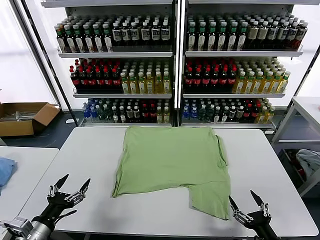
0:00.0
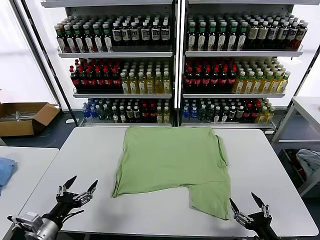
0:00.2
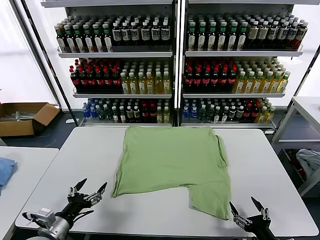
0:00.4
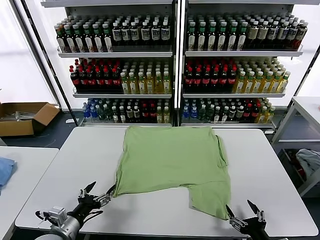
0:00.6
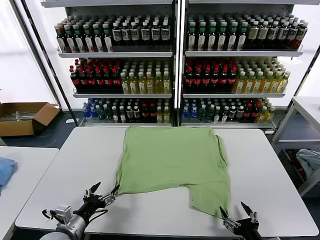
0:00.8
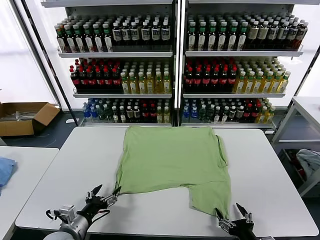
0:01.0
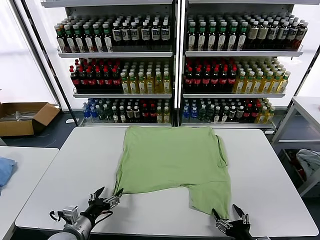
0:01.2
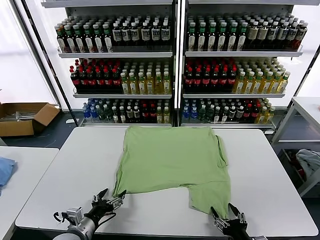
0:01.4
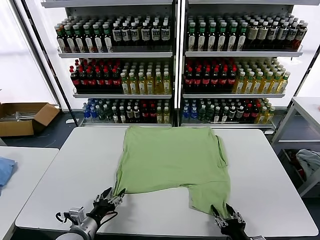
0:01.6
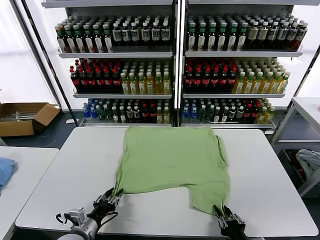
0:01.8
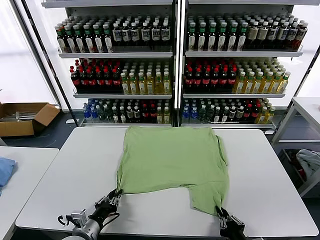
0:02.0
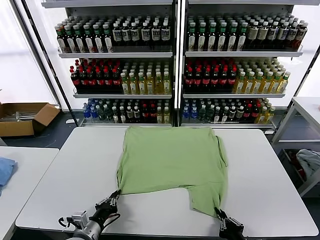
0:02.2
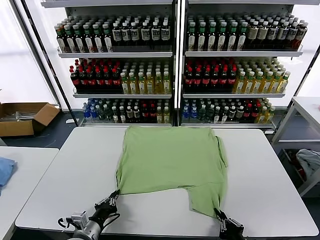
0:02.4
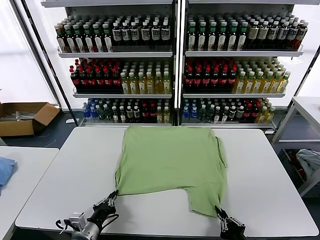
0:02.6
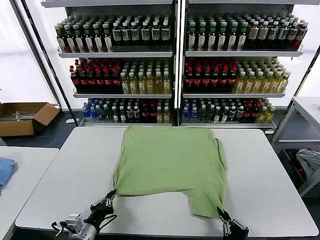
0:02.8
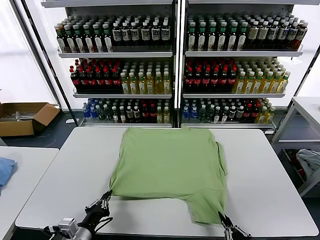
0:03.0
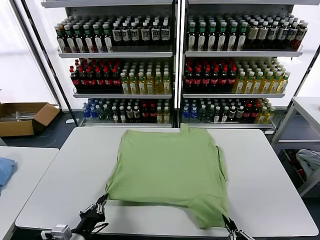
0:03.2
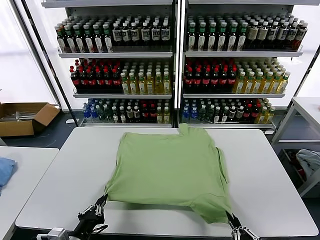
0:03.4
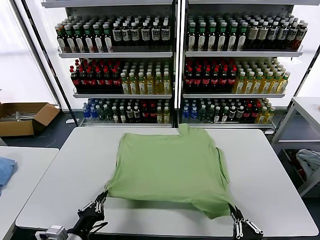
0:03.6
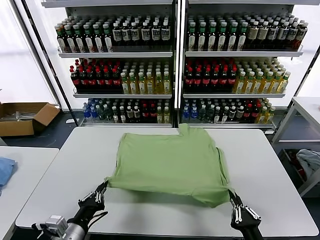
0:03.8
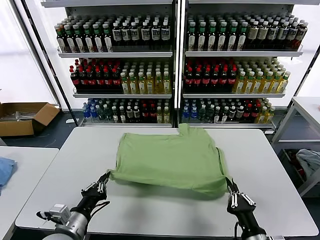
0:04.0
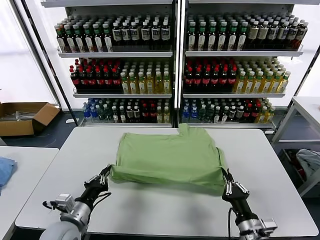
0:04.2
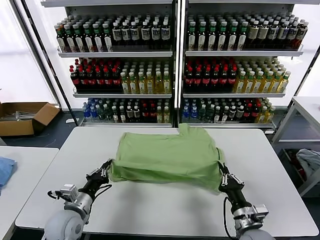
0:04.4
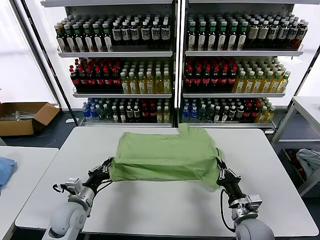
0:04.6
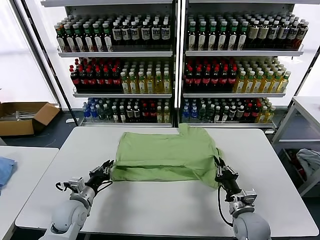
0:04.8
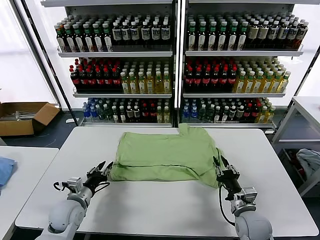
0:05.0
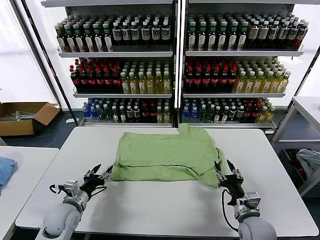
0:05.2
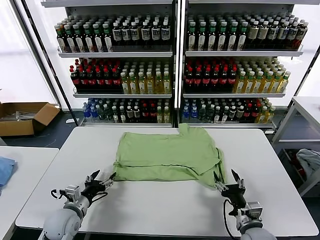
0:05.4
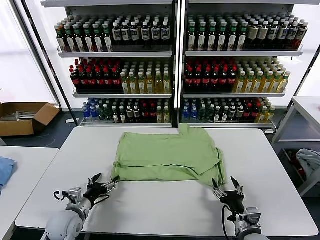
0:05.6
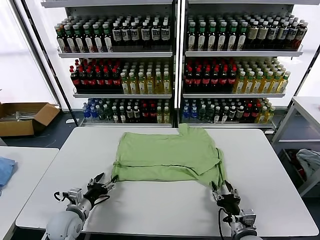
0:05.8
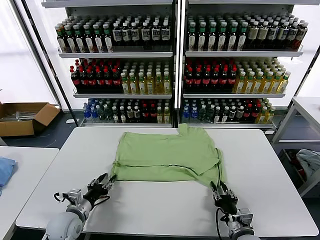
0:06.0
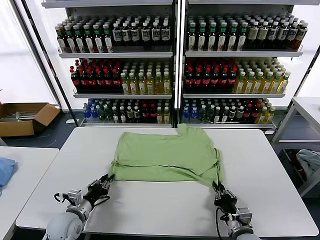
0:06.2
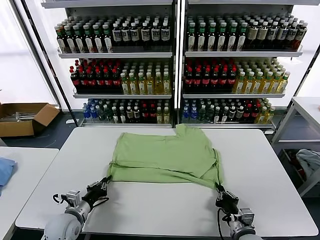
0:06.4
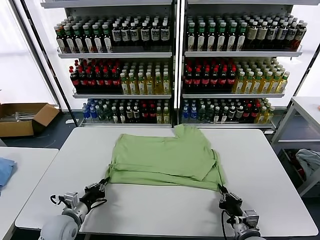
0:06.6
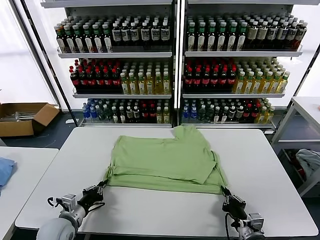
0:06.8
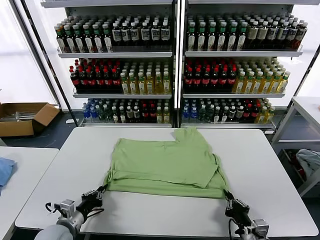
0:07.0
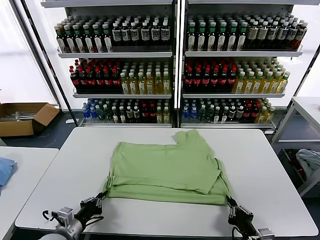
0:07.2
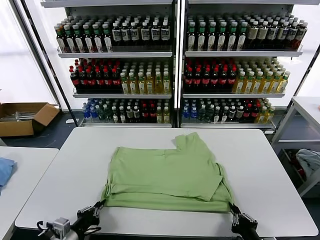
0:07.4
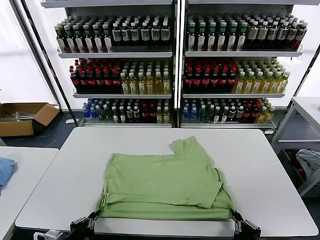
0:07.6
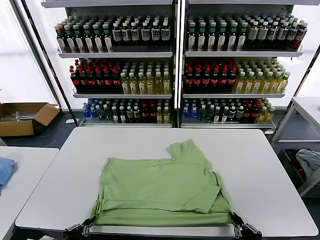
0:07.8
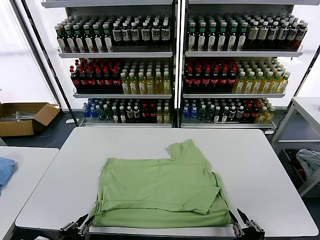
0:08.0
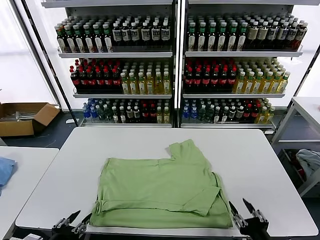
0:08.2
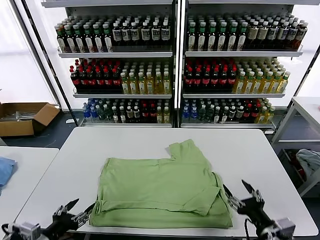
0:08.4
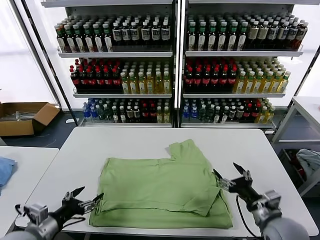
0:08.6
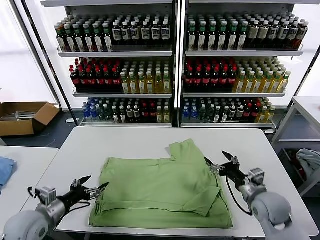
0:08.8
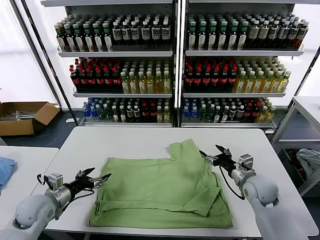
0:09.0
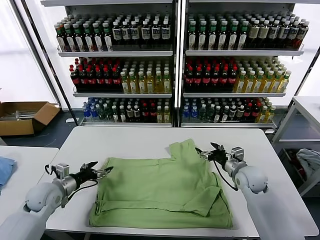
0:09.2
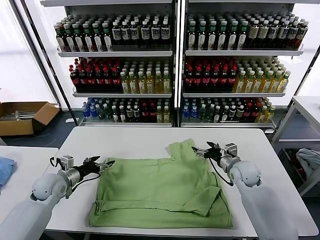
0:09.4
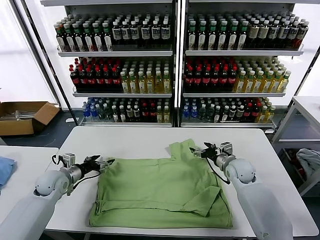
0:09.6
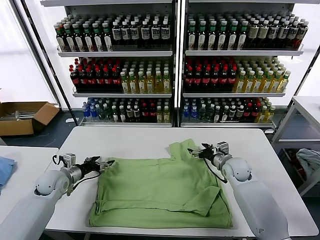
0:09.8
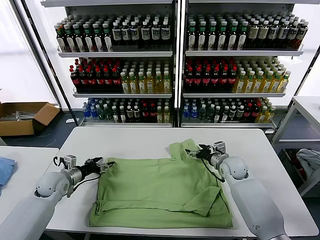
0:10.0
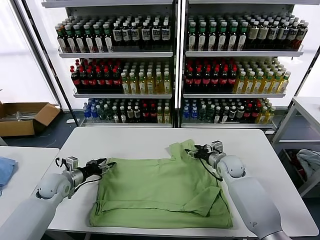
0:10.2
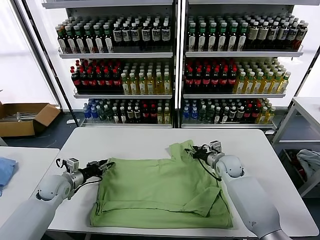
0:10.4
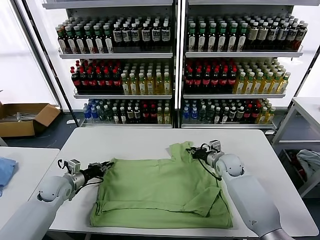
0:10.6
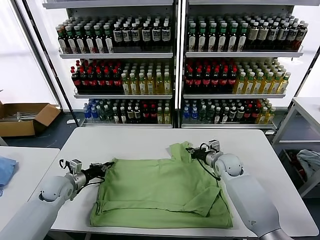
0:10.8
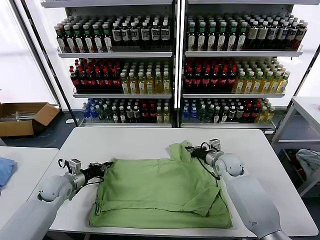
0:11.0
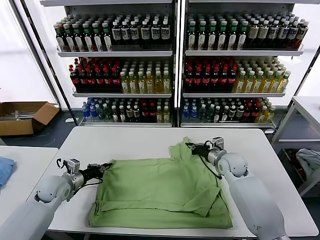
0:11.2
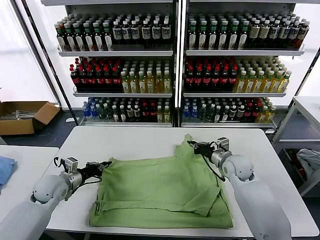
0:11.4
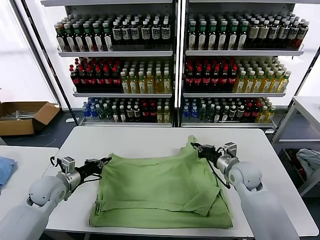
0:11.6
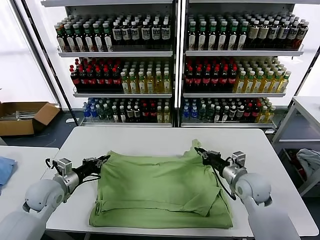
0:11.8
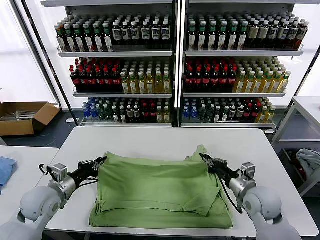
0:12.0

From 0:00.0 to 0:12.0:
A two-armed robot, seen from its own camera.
Task of the whole recording: fold and organize the clothes.
Step, from 0:00.0 to 0:02.2: use both grippers simultaneously to clamp the lower edge of the clothing fabric.
Step, from 0:02.4 to 0:05.0: use both grippers to drag the lower edge of the fabric forward and fold it over the upper edge.
Step, from 0:05.2 to 0:08.0: Drag the clothes downward with both gripper.
Step, from 0:08.2 to 0:10.6: use both grippers simultaneously to clamp the upper edge of the clothing fabric.
From 0:01.6 to 0:03.0: The left gripper shifts by some 5 cm, and closes; the right gripper is displaced backward by roughly 5 cm, and closes up.
From 0:03.0 to 0:04.4: The left gripper heads forward, covering roughly 10 cm; the right gripper shifts about 20 cm forward.
From 0:04.4 to 0:06.0: The left gripper shifts some 5 cm downward, and opens its fingers, while the right gripper ends up approximately 5 cm from where it was, and opens and closes again.
From 0:06.0 to 0:07.6: The left gripper shifts about 15 cm backward, and closes up. Meanwhile the right gripper goes some 15 cm backward and upward.
From 0:07.6 to 0:09.0: The left gripper travels forward by roughly 20 cm, and opens. The right gripper shifts approximately 30 cm forward, and opens its fingers.
From 0:09.0 to 0:10.4: The right gripper is displaced forward and to the left by some 10 cm, and closes its fingers. The left gripper heads forward, covering about 10 cm, and closes up.
From 0:10.4 to 0:12.0: The left gripper is displaced backward and upward by approximately 10 cm, and closes up, while the right gripper moves backward, approximately 20 cm, and closes.

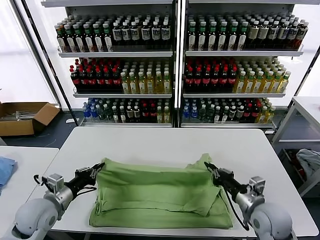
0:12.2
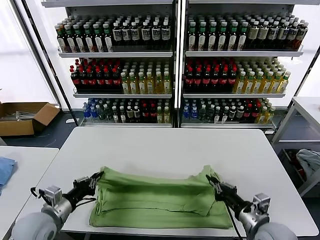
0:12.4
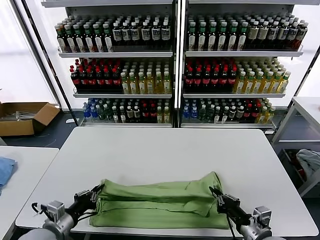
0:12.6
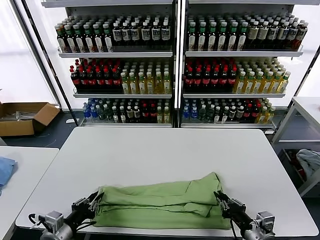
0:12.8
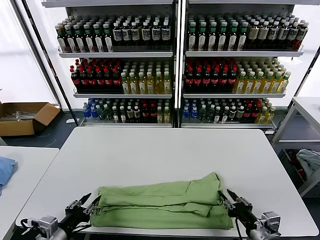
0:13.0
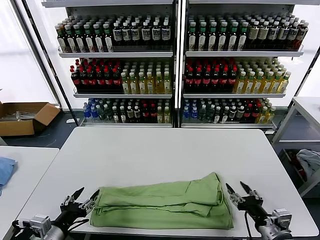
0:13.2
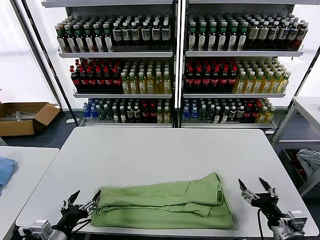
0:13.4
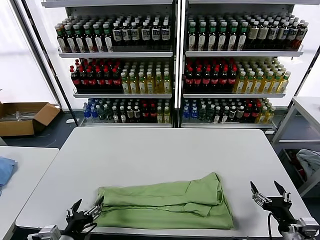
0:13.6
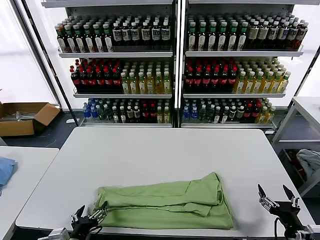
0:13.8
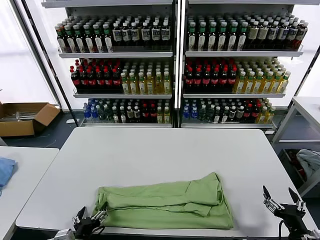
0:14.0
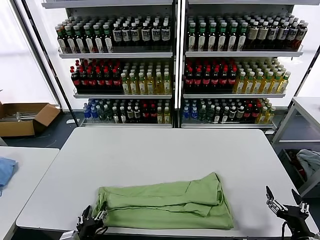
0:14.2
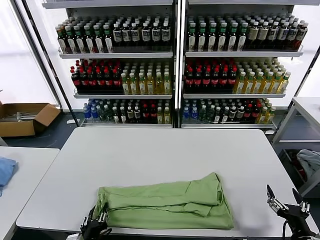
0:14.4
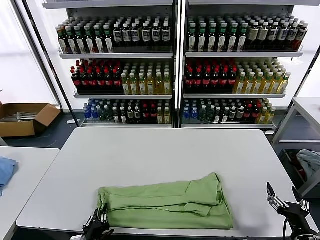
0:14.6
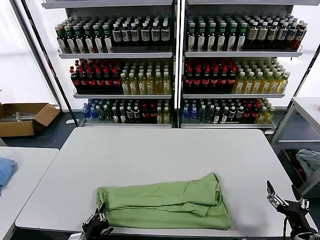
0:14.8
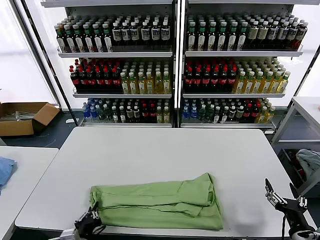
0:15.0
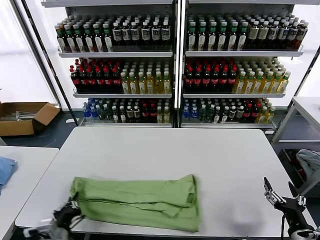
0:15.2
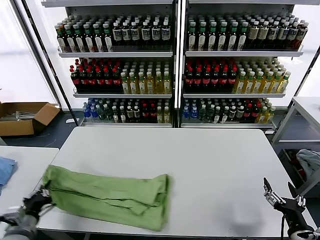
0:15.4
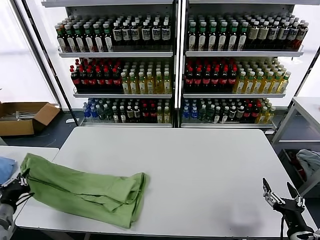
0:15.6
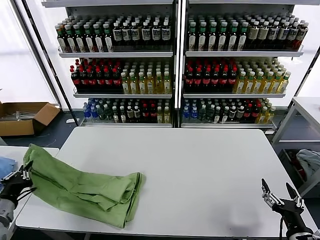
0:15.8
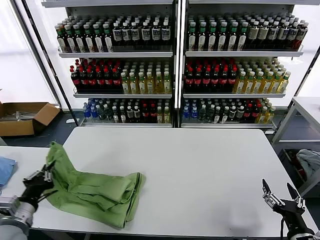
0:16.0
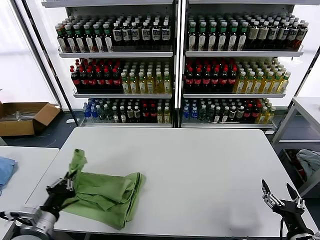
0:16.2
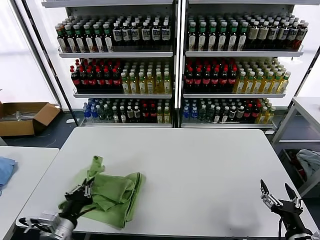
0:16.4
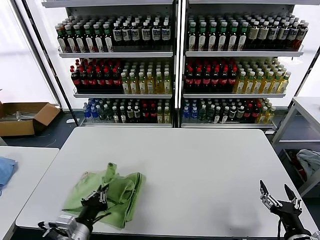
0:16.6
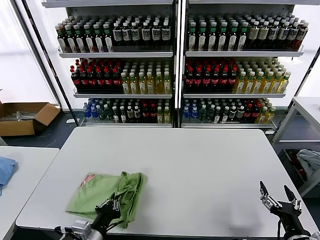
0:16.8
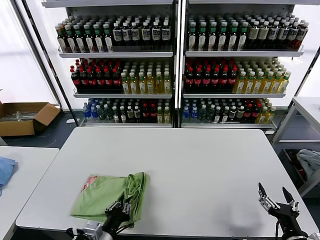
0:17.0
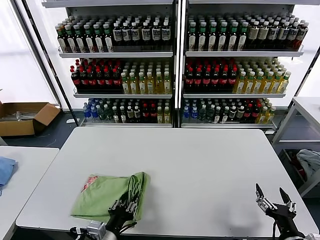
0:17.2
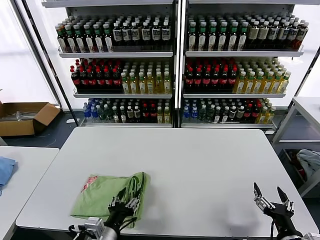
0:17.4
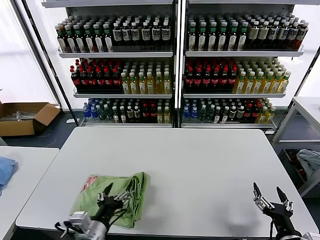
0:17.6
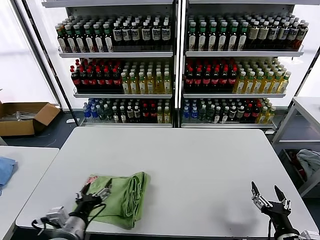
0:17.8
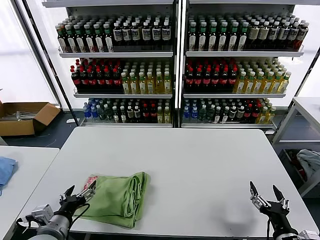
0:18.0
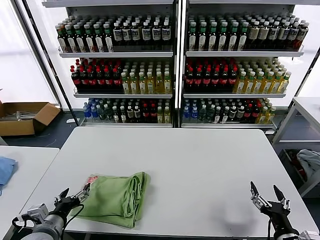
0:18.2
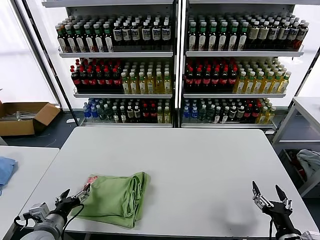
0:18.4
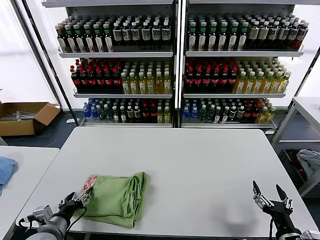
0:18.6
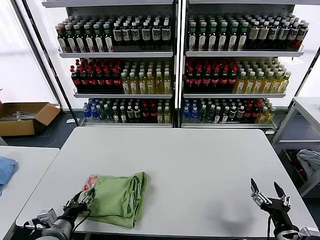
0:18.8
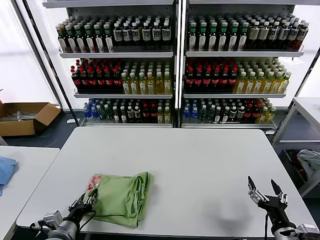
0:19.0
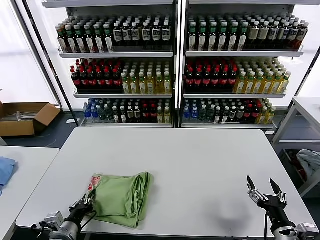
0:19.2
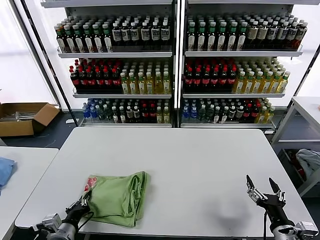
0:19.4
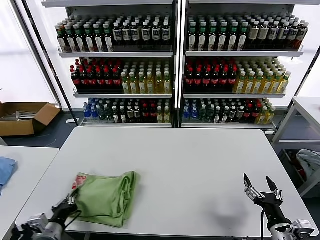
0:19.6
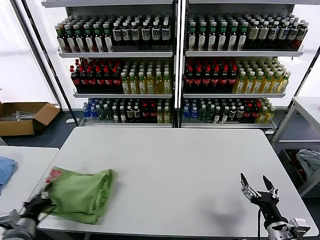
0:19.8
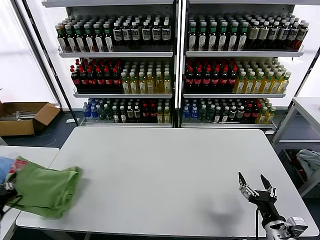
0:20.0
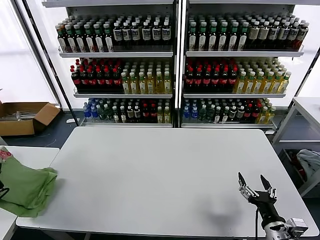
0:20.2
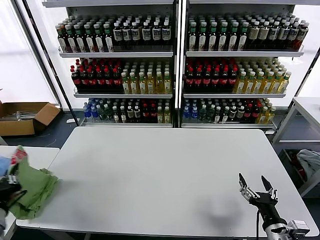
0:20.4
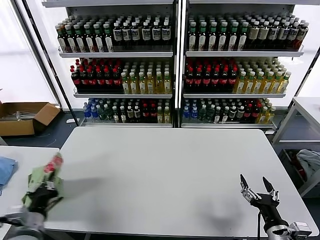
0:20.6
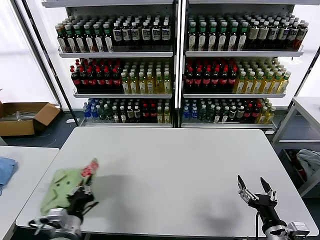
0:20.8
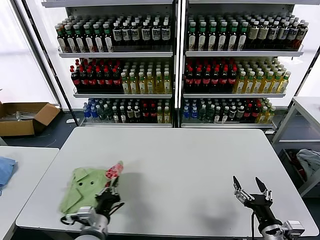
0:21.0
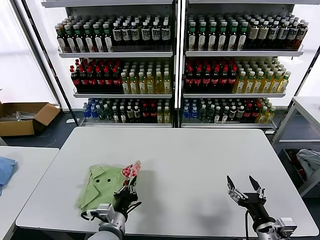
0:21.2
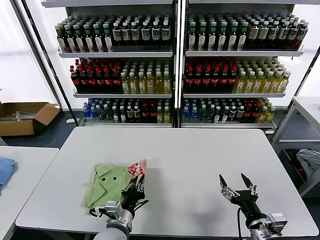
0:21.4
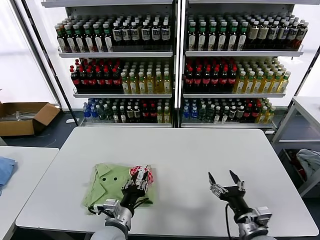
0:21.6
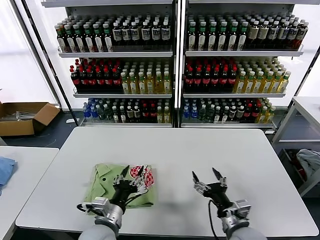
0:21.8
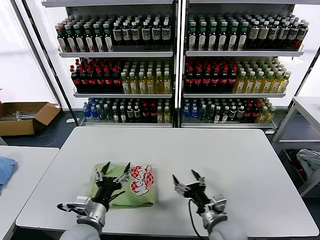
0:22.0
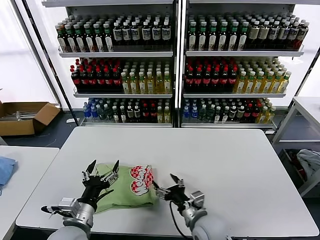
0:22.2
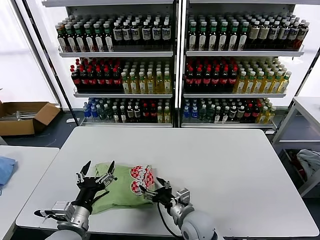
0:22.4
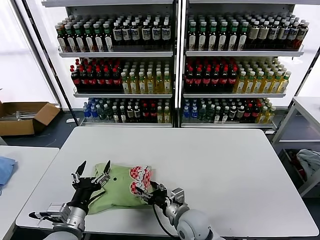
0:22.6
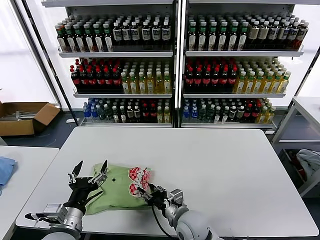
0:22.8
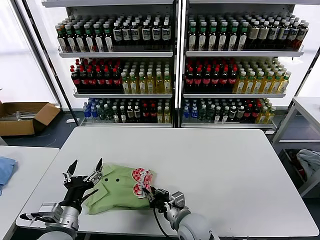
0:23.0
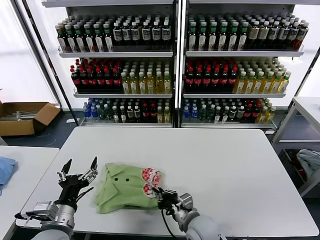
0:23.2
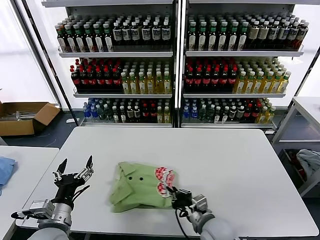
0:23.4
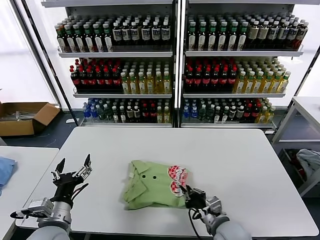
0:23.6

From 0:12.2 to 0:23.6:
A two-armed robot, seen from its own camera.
Task of the whole recording: fold and organize the clothes.
Step, from 0:13.2 to 0:14.6: use the left gripper to clamp the left edge of the fabric.
Step, from 0:14.8 to 0:17.4: use the left gripper to drag the left edge of the fabric to the left and folds it over the right edge.
Step, from 0:17.6 to 0:21.6: Flip the folded clothes over with left gripper.
From 0:12.2 to 0:13.6: Both grippers move backward and to the right, approximately 15 cm. The right gripper opens; the left gripper opens up.
From 0:13.6 to 0:15.0: The left gripper shifts by approximately 5 cm, and closes its fingers.
From 0:15.0 to 0:16.4: The left gripper moves upward, roughly 10 cm, and goes to the left and returns, some 20 cm each way.
From 0:16.4 to 0:17.8: The left gripper opens its fingers.
From 0:17.8 to 0:19.4: The left gripper heads downward and to the left, covering some 10 cm, and closes up.
From 0:19.4 to 0:20.8: The left gripper goes about 5 cm upward, and goes to the left and returns, approximately 15 cm each way.
From 0:20.8 to 0:22.2: The right gripper is displaced to the left and forward by about 20 cm, while the left gripper goes some 5 cm to the right, and opens.
From 0:22.2 to 0:23.6: The left gripper ends up roughly 5 cm from where it was. Meanwhile the right gripper closes.
